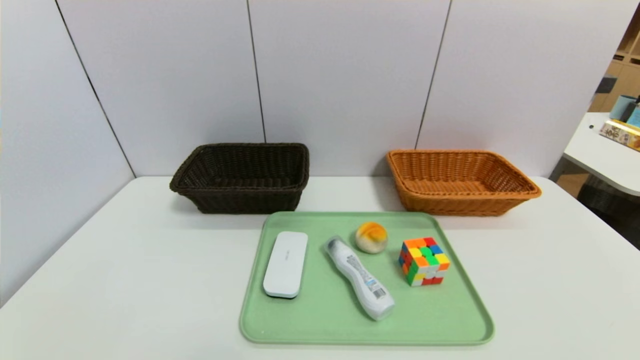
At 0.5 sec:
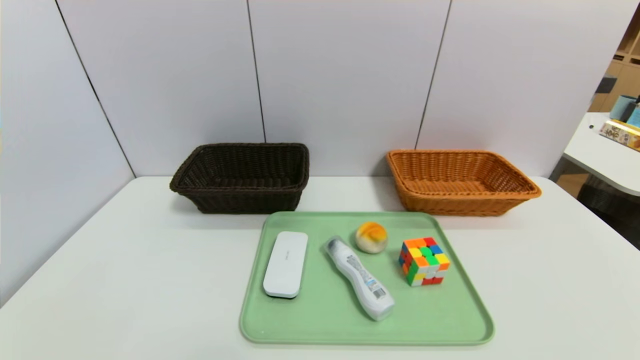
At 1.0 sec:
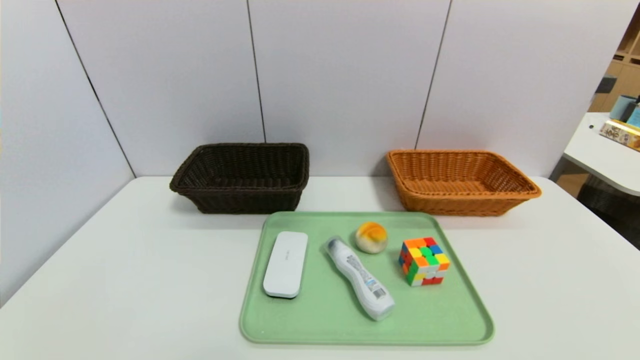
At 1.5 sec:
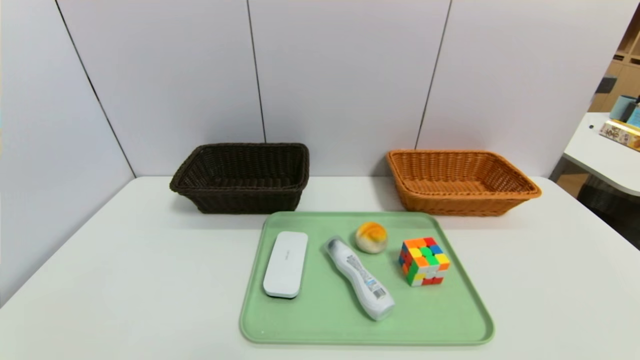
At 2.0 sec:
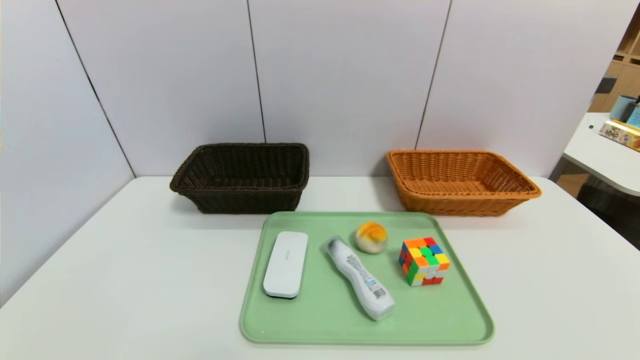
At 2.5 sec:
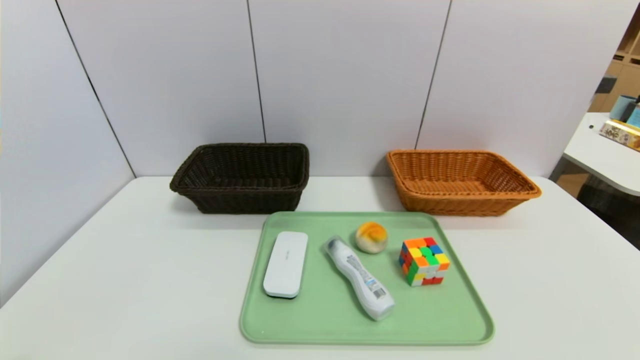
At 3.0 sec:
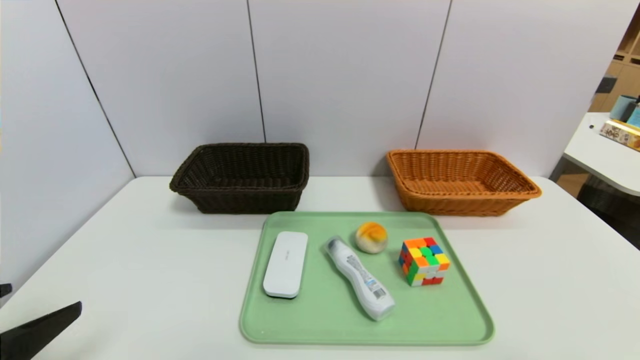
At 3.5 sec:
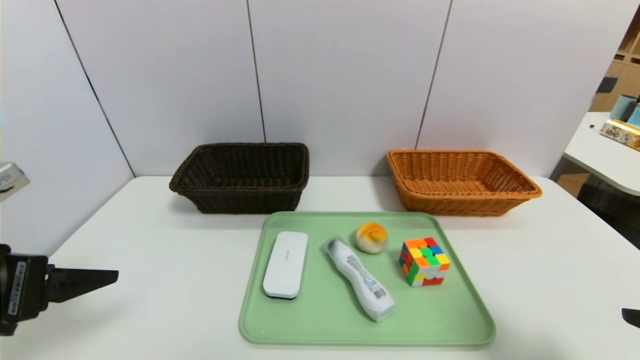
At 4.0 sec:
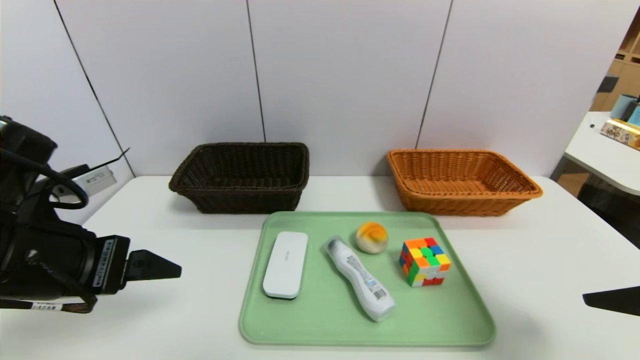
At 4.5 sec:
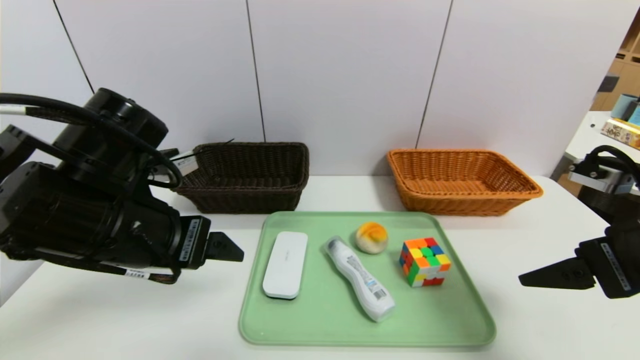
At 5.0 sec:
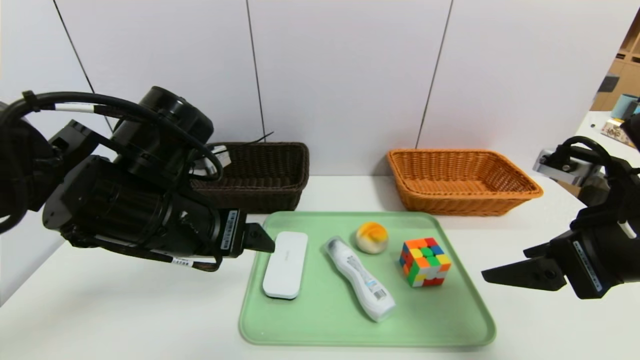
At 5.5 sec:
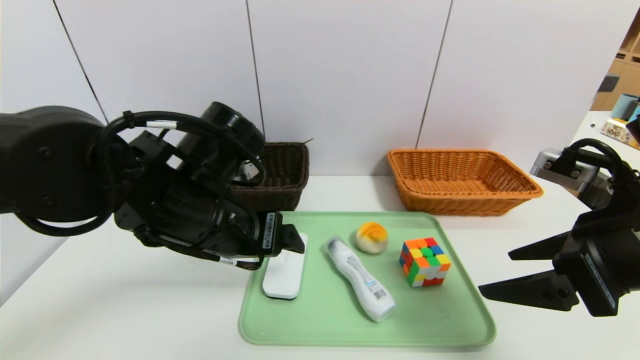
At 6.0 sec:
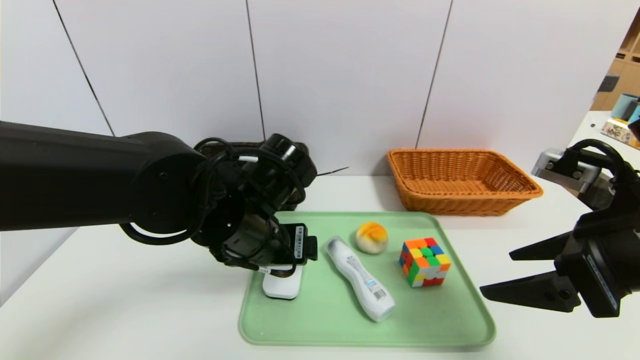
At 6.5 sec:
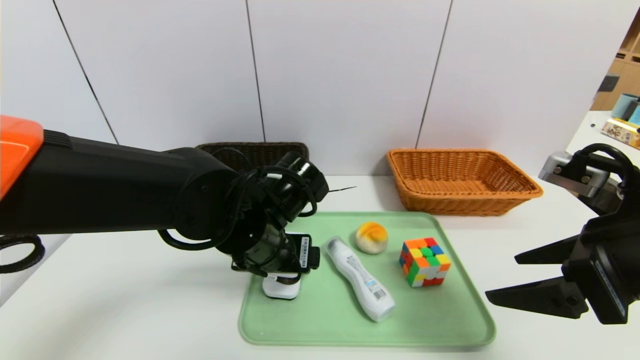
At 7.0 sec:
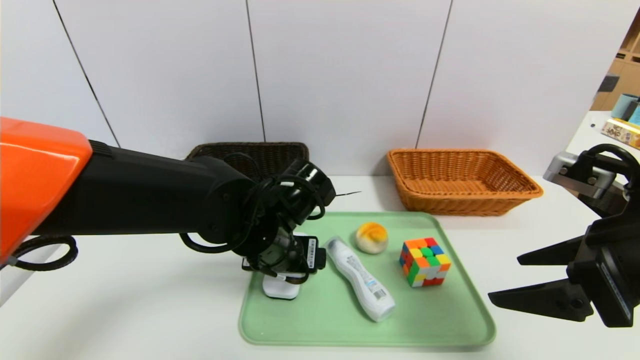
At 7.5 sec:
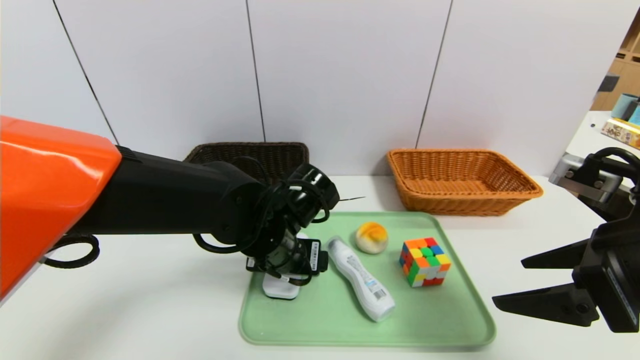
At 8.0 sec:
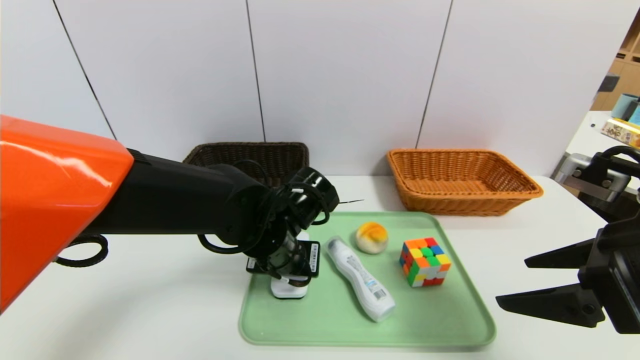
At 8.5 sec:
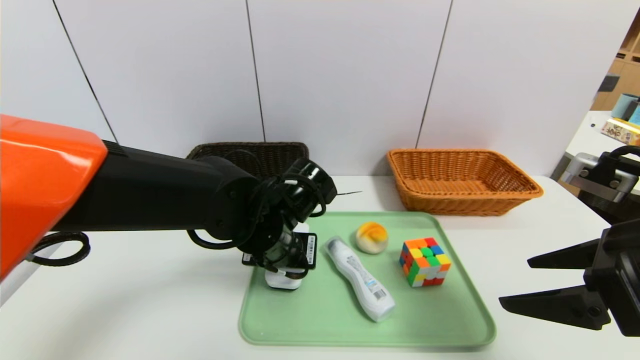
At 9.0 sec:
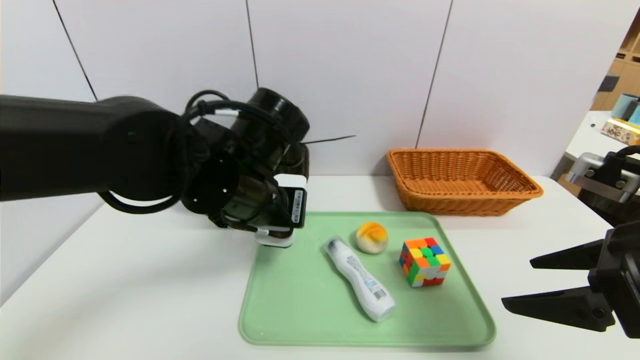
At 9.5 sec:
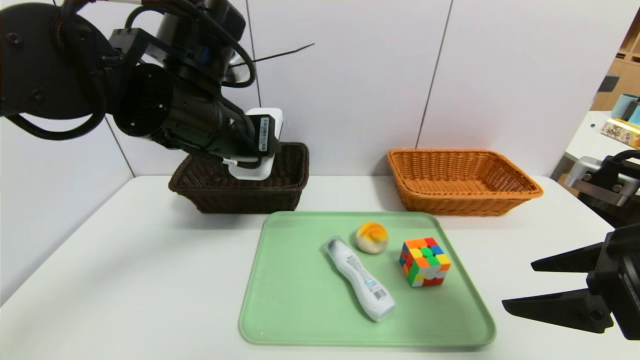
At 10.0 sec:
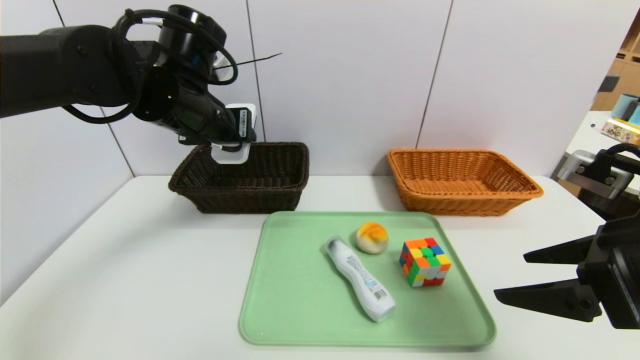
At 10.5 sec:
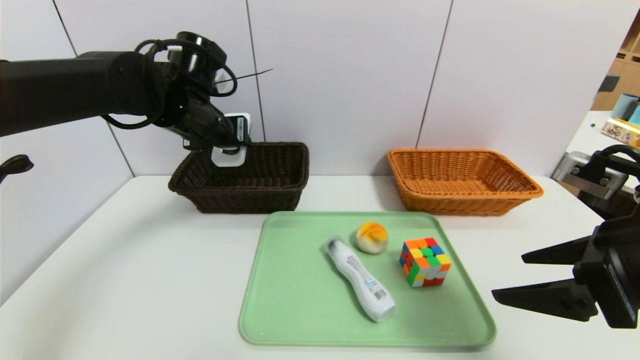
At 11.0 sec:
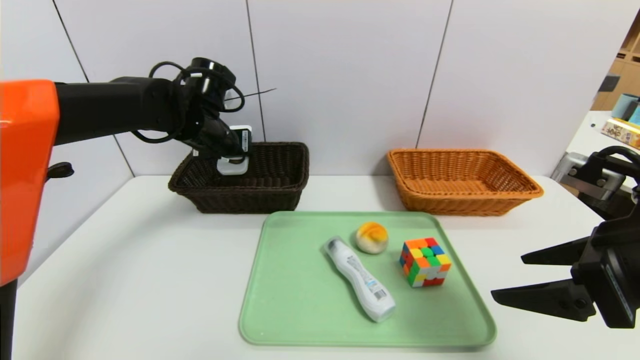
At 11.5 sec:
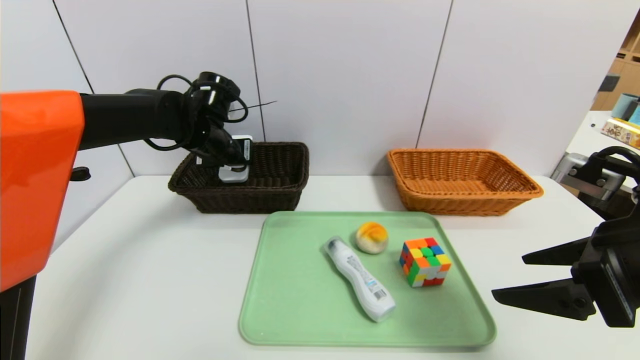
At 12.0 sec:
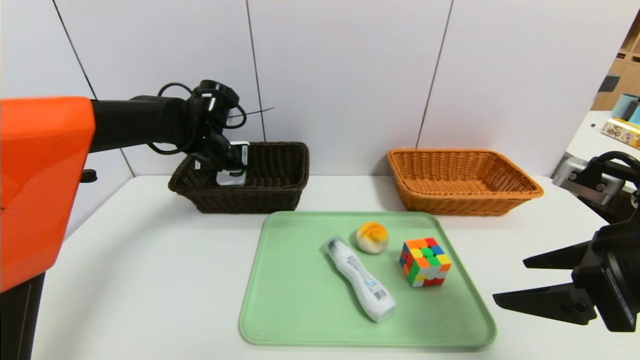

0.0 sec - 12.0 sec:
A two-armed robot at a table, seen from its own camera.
Task of the whole recording: place the food in the right basket with the right gripper, and place the non food items in the left basket with the left gripper.
2.0 sec - 4.0 sec: Both grippers move forward and upward, some 25 cm.
4.0 sec - 6.0 sec: The left gripper goes about 20 cm to the right and forward. Meanwhile the right gripper moves to the left, approximately 5 cm.
6.0 sec - 8.0 sec: The left gripper moves some 5 cm, and closes.
8.0 sec - 10.0 sec: The left gripper is displaced upward, to the left and forward by roughly 20 cm.
10.0 sec - 12.0 sec: The left gripper moves forward and downward, roughly 10 cm.

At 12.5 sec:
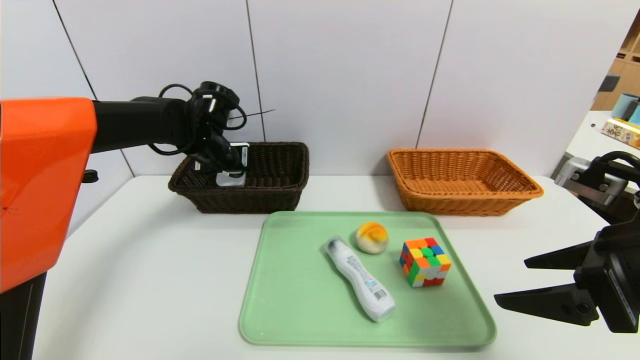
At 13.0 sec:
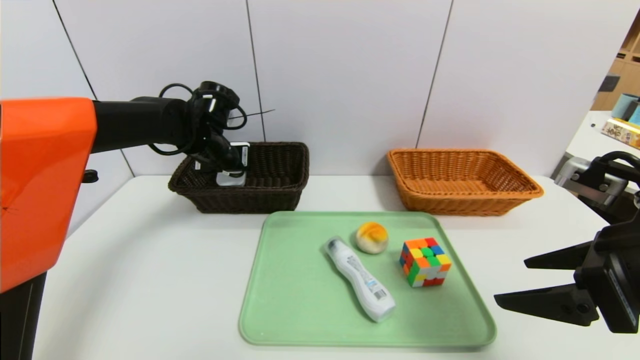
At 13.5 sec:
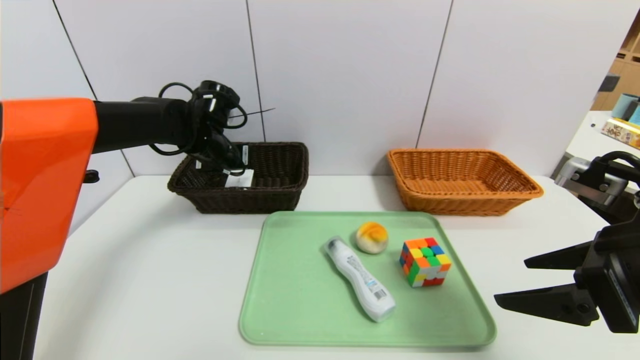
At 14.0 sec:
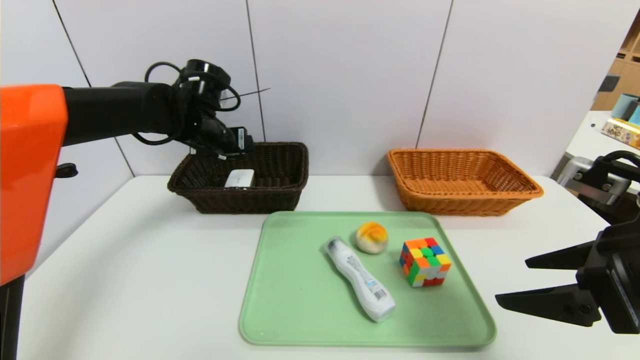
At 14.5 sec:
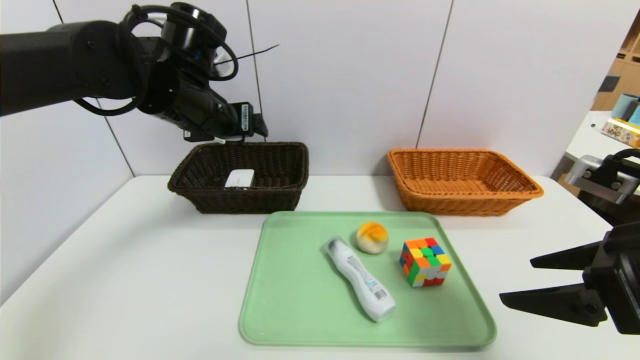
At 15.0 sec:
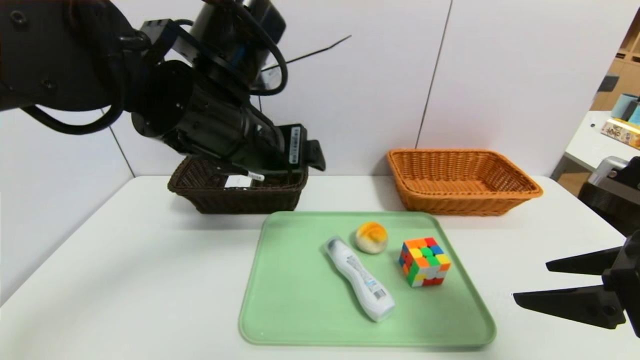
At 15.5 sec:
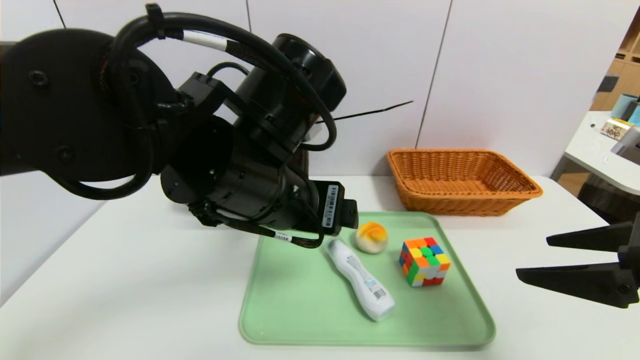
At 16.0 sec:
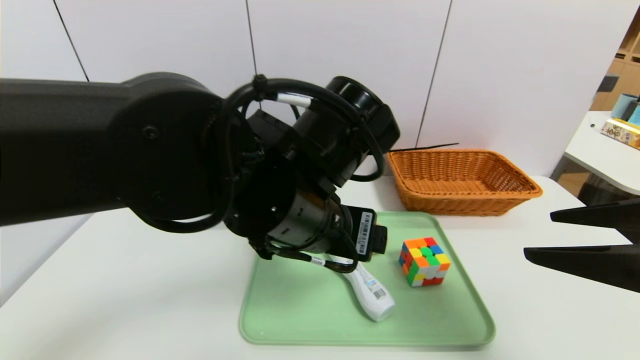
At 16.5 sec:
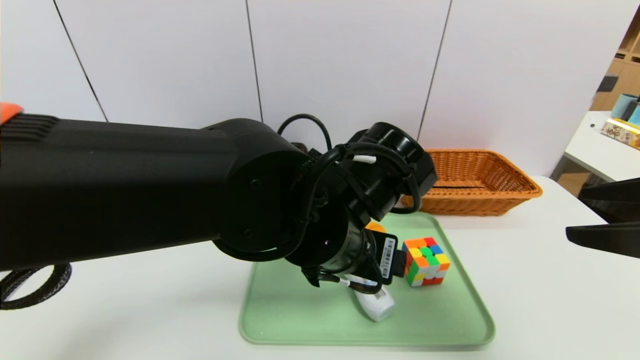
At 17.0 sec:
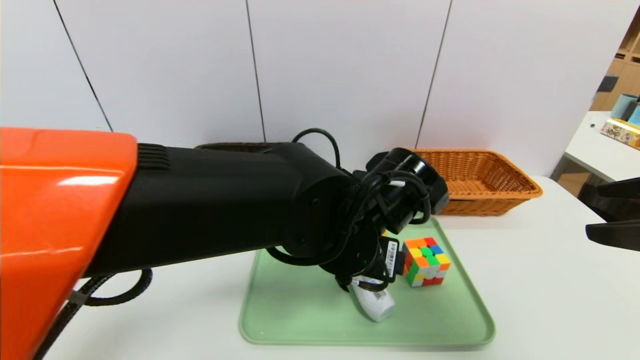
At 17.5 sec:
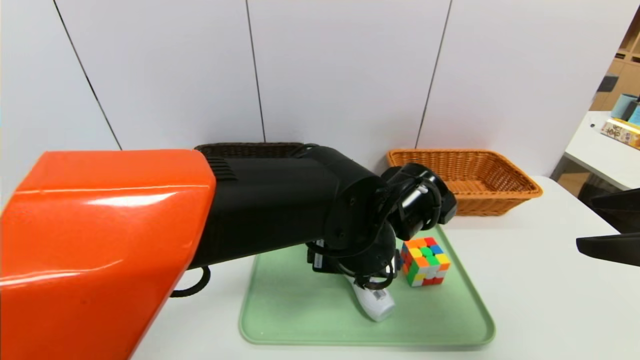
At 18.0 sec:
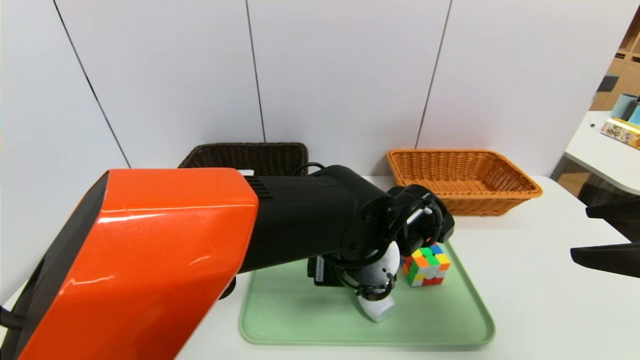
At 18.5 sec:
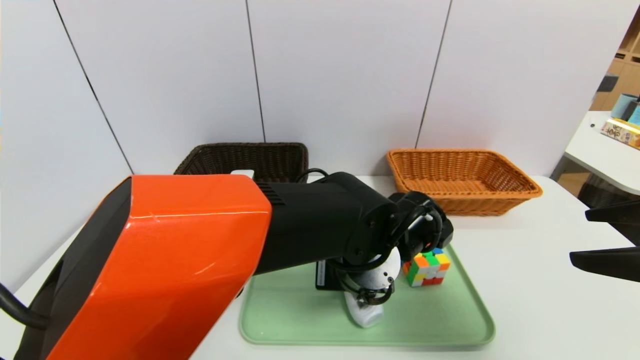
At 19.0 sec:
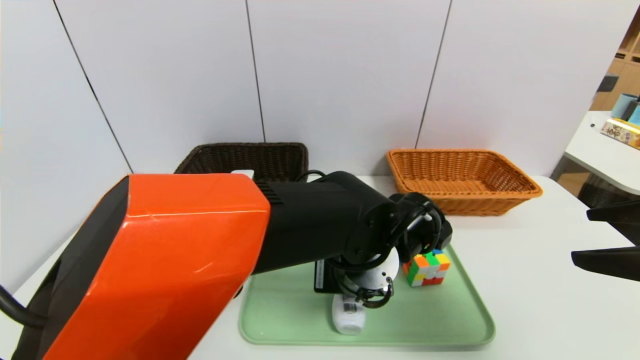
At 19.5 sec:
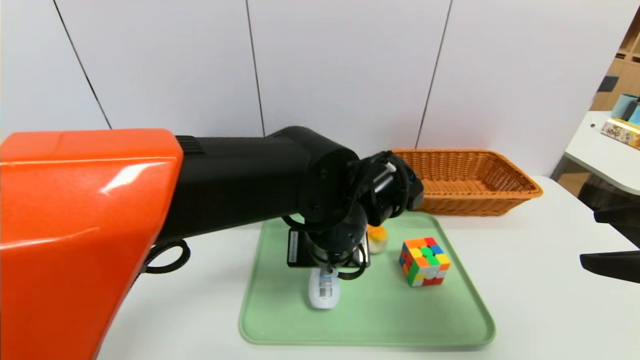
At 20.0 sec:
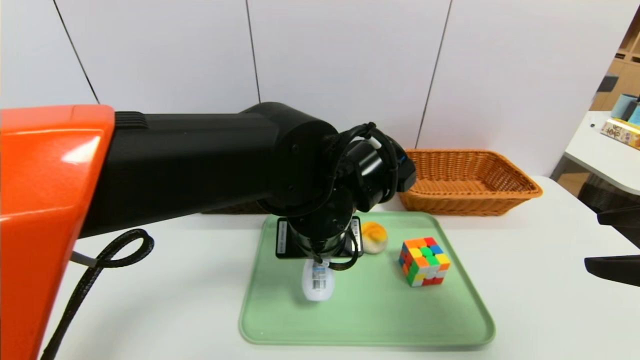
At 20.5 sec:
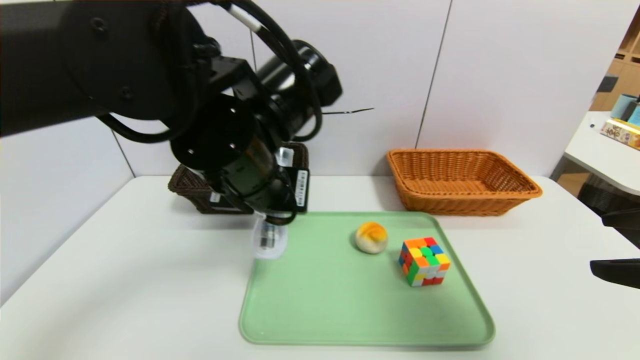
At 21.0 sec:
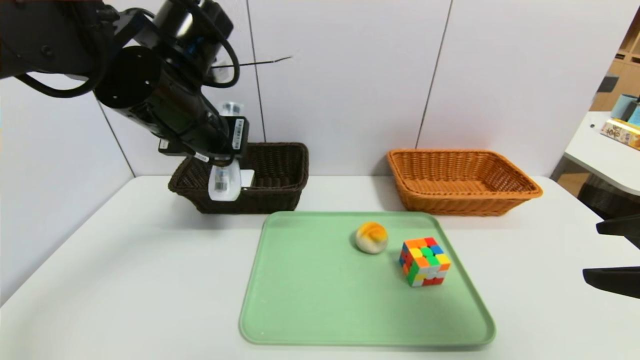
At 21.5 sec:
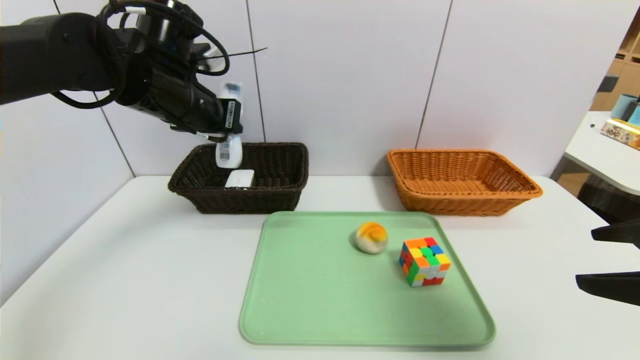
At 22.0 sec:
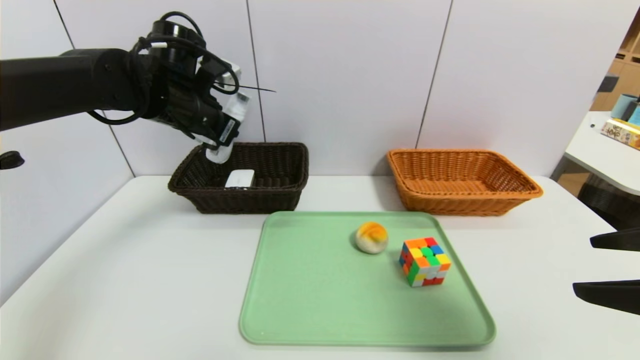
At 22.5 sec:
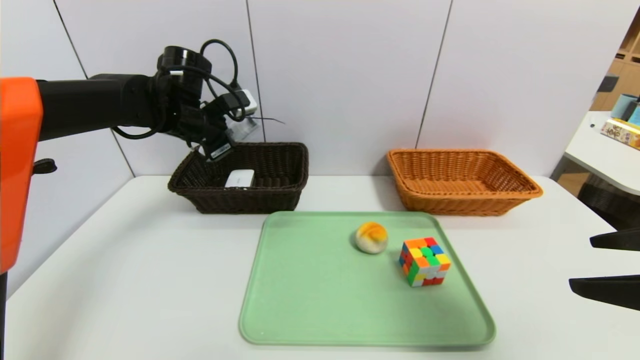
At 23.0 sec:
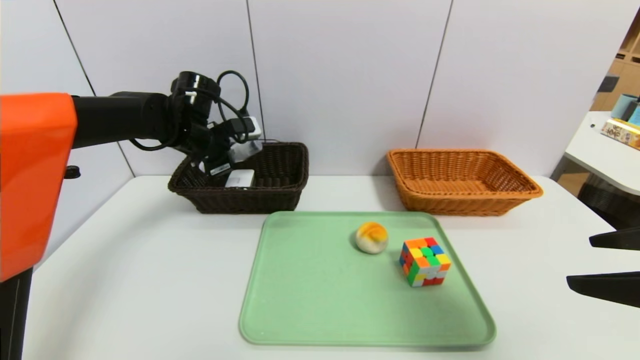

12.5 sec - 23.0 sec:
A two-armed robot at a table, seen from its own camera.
Task of the whole recording: place the food in the right basket with the right gripper, and place the non food items in the left basket with the left gripper.
12.5 sec - 14.5 sec: The left gripper goes approximately 15 cm upward and backward, and opens its fingers.
14.5 sec - 16.5 sec: The left gripper is displaced to the right, backward and downward by some 20 cm. Meanwhile the right gripper moves upward, about 10 cm.
16.5 sec - 19.0 sec: The left gripper goes approximately 5 cm downward, and closes up.
19.0 sec - 21.0 sec: The left gripper heads to the left and upward, covering some 25 cm.
21.0 sec - 23.0 sec: The left gripper goes approximately 20 cm forward, downward and to the left.
